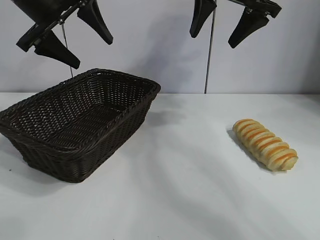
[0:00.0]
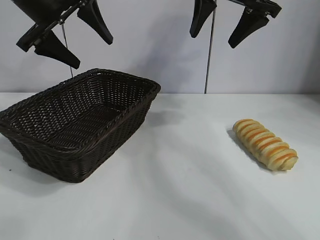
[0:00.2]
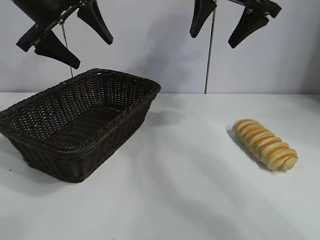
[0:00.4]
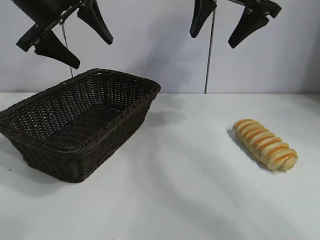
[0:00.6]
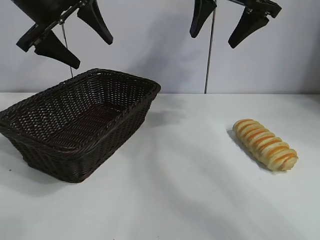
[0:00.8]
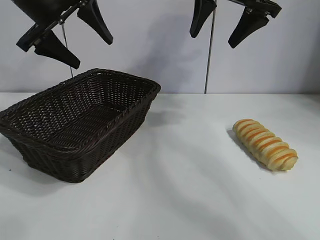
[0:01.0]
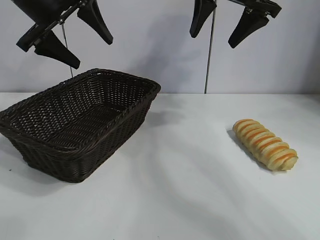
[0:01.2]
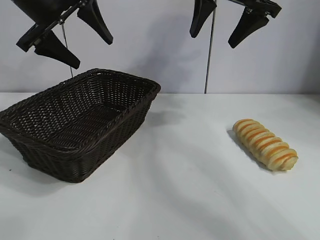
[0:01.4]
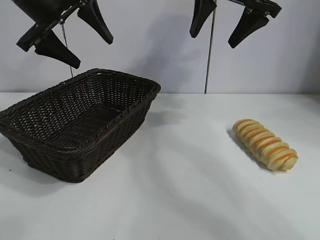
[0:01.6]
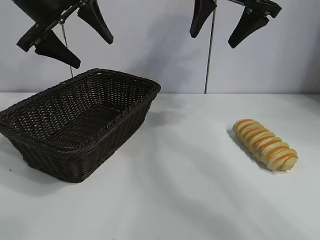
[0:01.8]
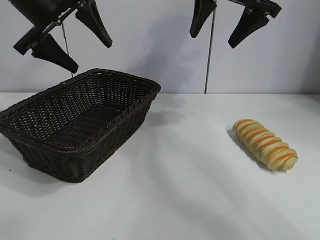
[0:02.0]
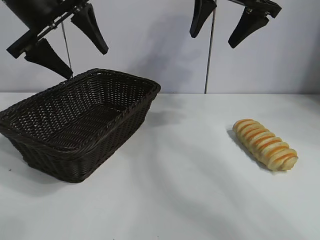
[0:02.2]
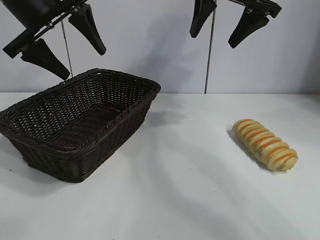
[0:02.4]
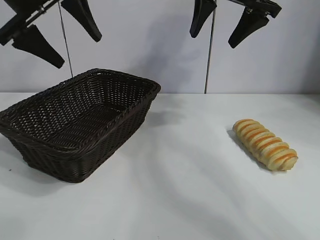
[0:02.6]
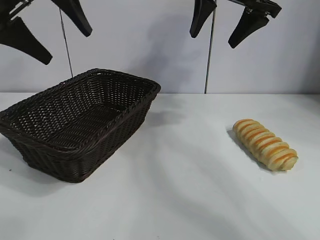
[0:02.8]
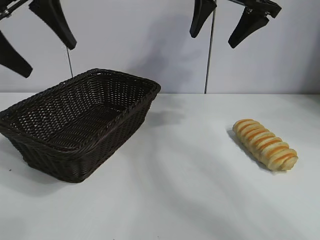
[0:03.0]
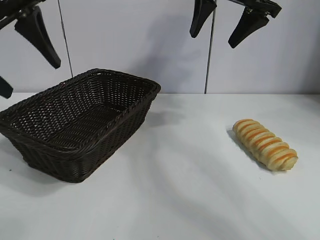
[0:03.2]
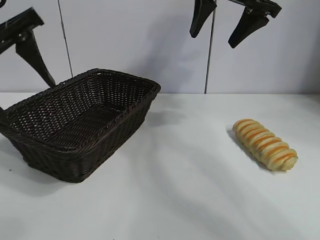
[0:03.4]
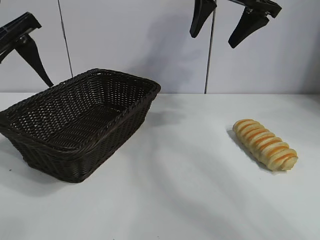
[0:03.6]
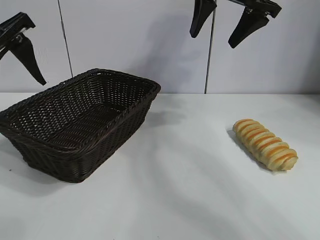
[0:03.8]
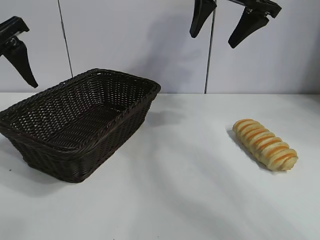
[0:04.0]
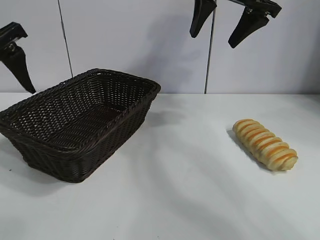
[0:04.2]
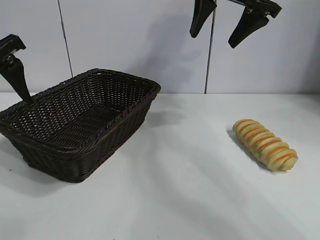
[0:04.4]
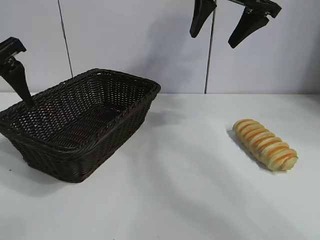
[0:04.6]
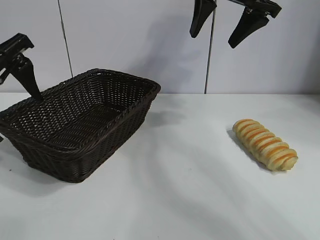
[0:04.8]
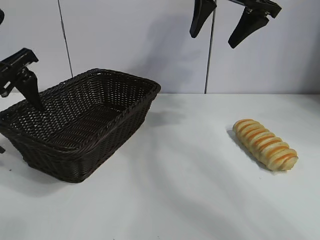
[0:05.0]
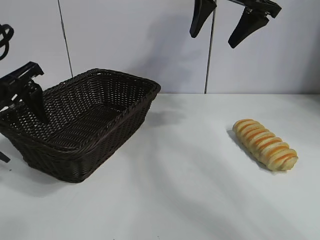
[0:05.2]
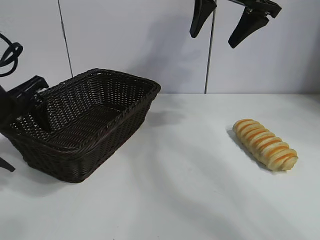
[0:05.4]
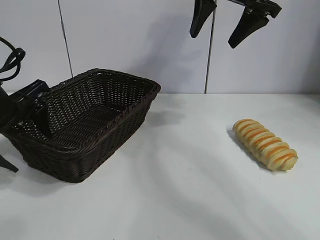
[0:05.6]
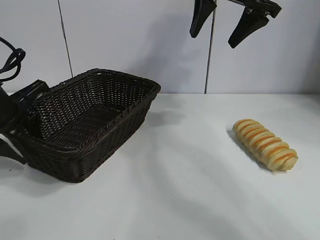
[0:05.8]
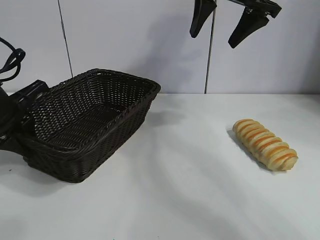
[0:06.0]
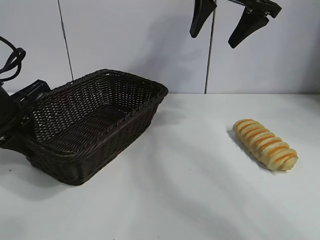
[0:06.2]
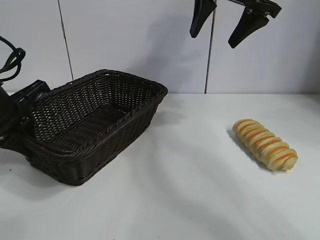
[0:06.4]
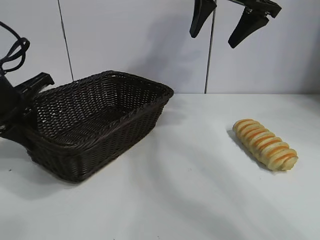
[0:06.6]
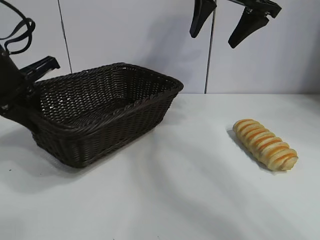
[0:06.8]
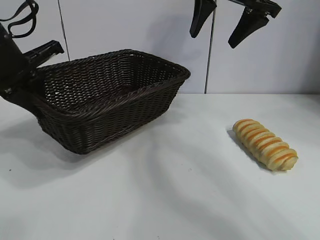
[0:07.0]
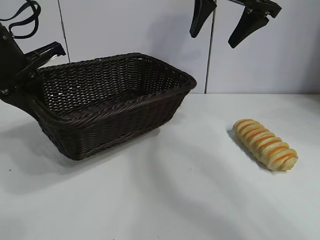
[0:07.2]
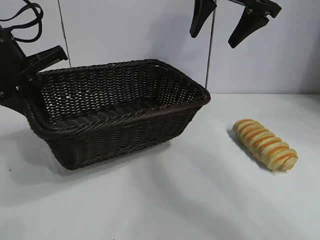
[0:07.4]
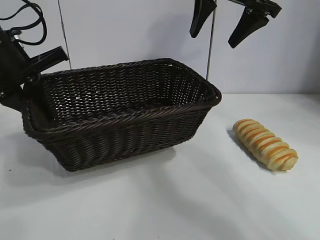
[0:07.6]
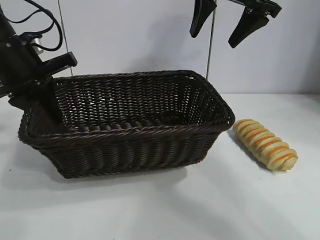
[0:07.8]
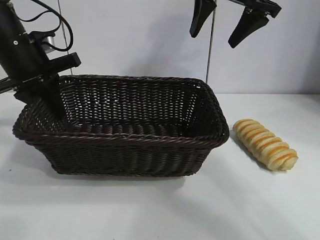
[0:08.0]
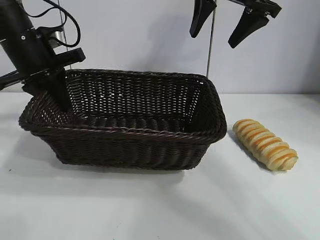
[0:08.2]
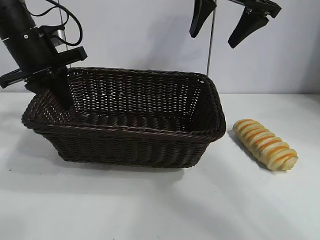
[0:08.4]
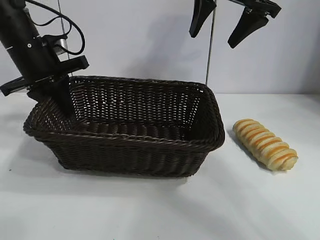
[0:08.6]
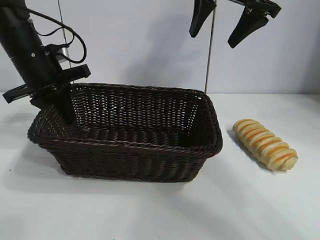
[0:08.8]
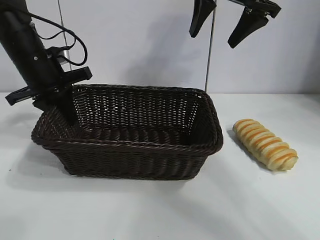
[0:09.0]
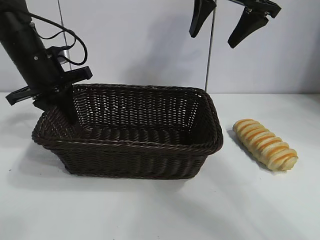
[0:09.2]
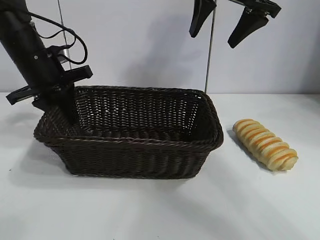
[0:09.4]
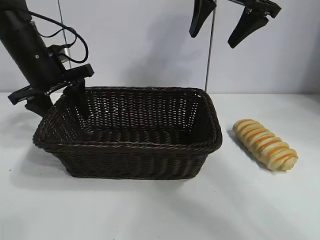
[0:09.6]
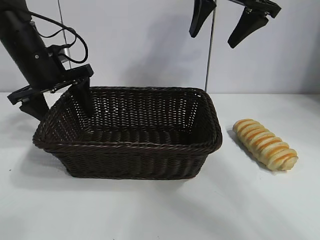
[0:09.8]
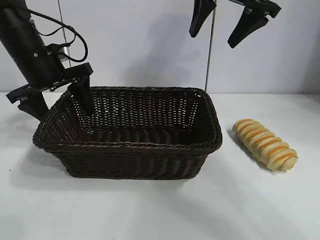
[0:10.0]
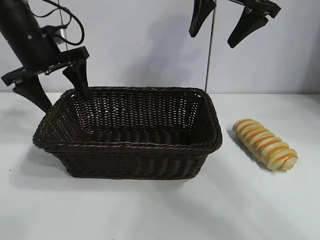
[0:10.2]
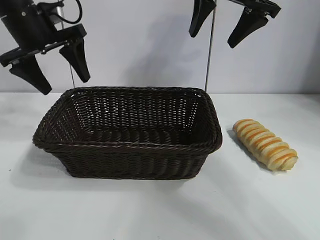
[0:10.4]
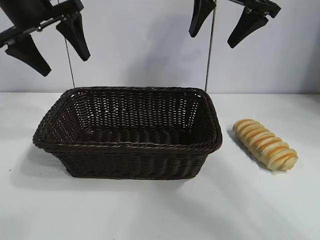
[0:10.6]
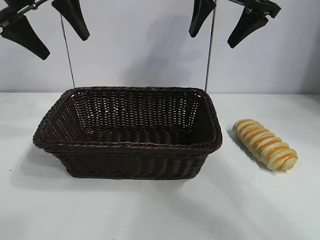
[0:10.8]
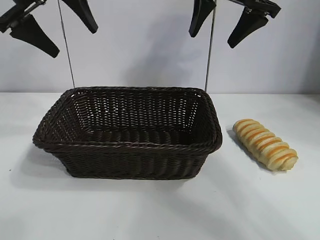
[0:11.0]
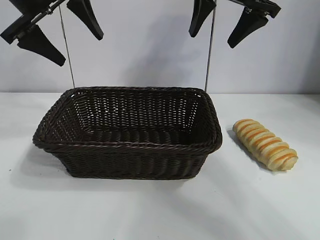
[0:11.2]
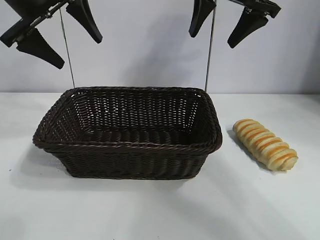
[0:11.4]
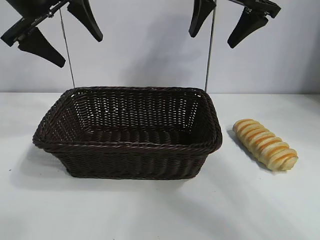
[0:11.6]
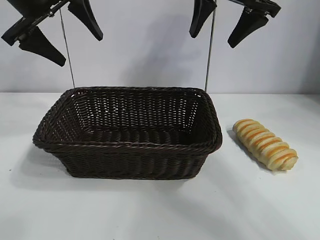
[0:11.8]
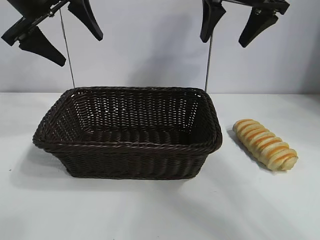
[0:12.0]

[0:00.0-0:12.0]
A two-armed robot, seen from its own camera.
Task of the whole recording: pick up the long bread and put it into the basket.
Step, 0:01.6 to 0:06.0: Grasp the basket with the left gripper.
Step, 0:06.2 to 0:09.8: Place the basket in the center of the table with the left gripper.

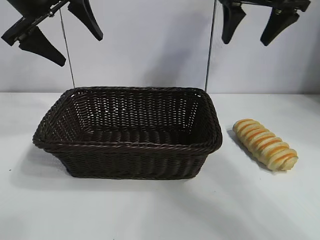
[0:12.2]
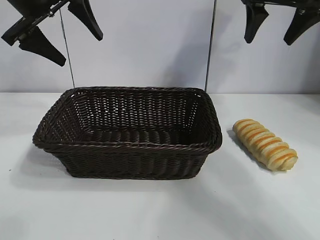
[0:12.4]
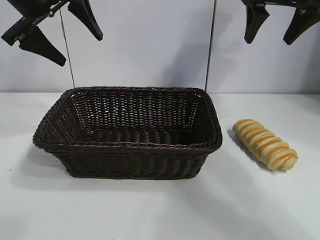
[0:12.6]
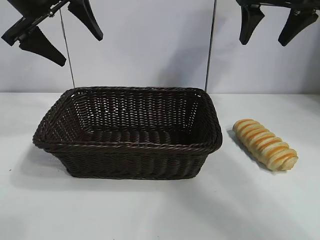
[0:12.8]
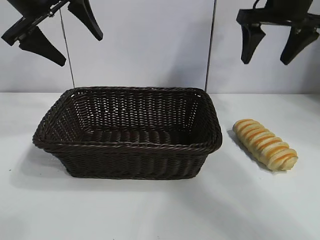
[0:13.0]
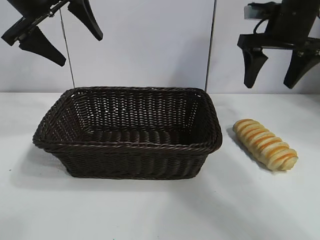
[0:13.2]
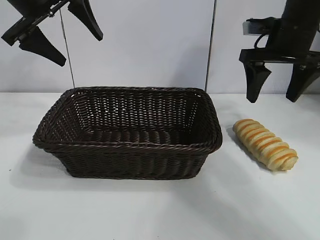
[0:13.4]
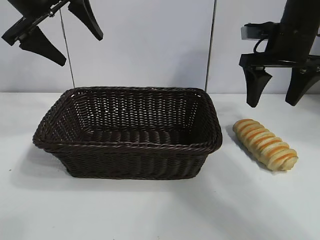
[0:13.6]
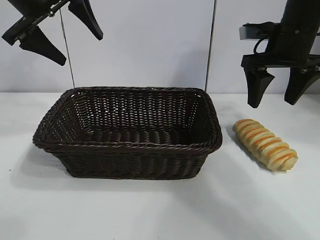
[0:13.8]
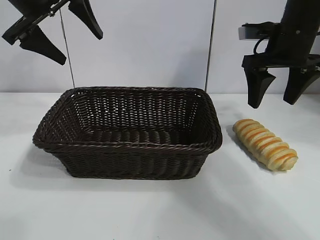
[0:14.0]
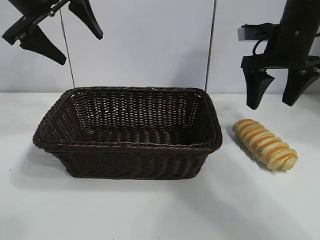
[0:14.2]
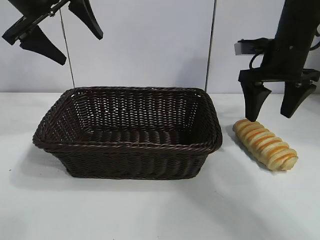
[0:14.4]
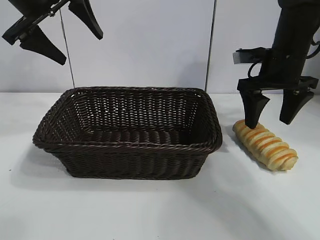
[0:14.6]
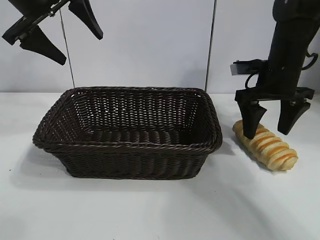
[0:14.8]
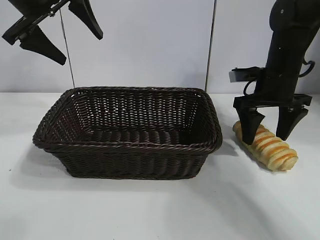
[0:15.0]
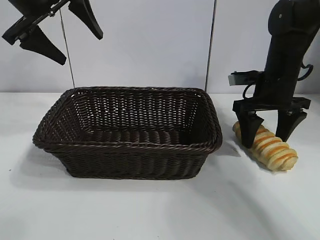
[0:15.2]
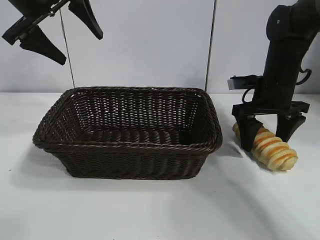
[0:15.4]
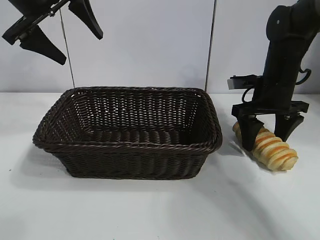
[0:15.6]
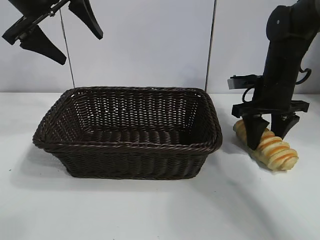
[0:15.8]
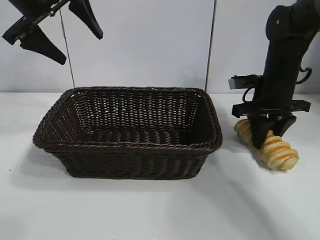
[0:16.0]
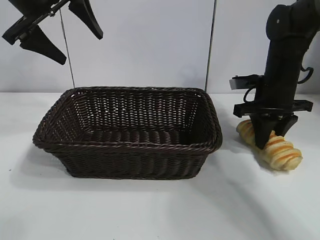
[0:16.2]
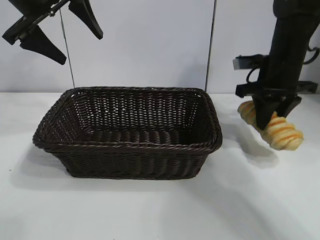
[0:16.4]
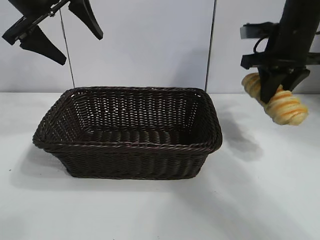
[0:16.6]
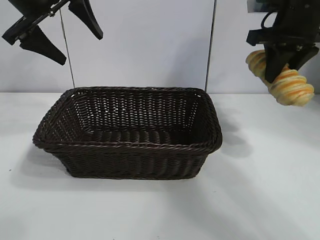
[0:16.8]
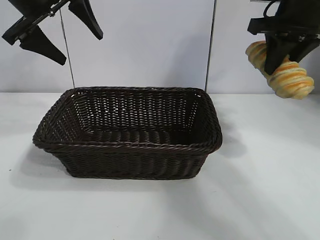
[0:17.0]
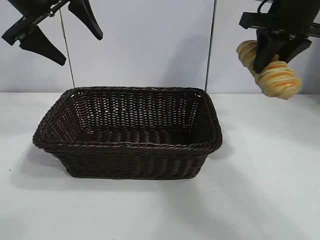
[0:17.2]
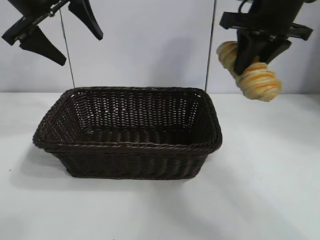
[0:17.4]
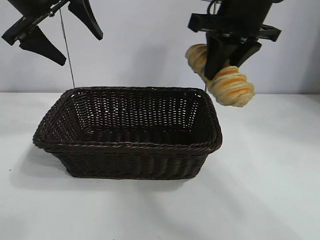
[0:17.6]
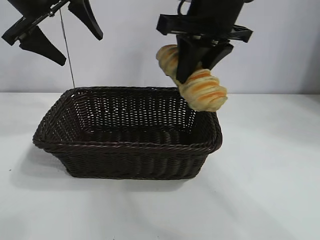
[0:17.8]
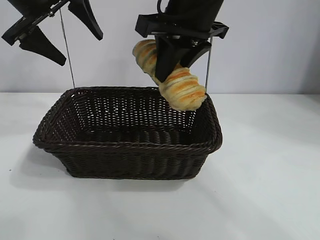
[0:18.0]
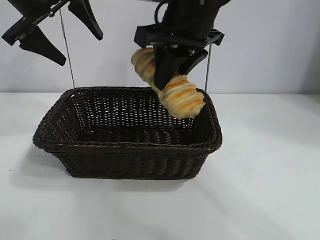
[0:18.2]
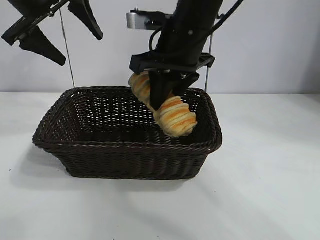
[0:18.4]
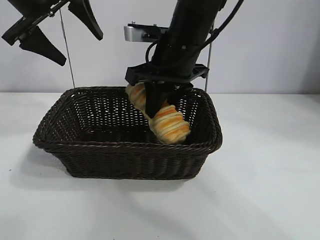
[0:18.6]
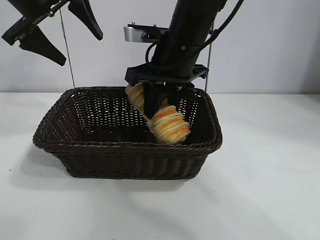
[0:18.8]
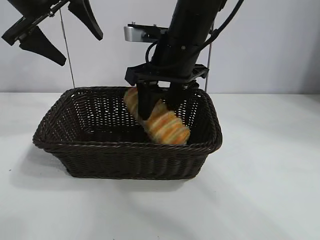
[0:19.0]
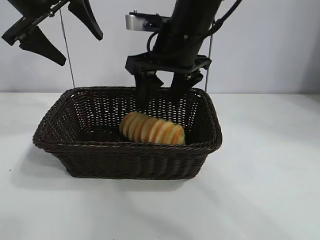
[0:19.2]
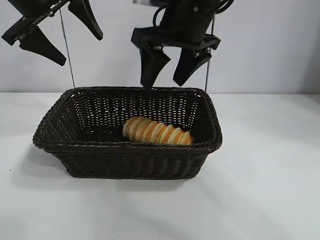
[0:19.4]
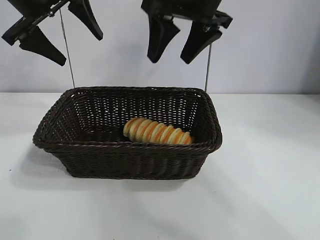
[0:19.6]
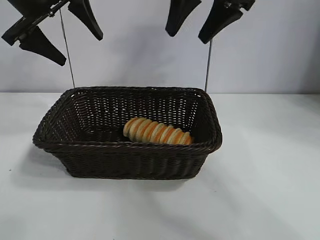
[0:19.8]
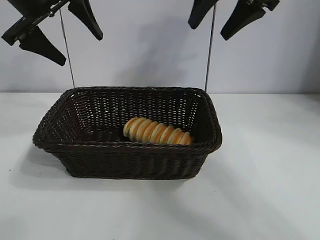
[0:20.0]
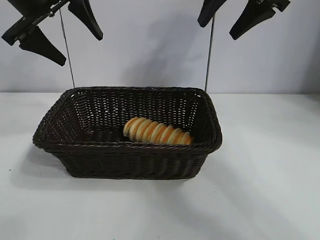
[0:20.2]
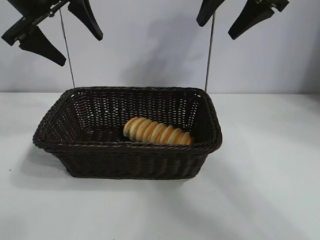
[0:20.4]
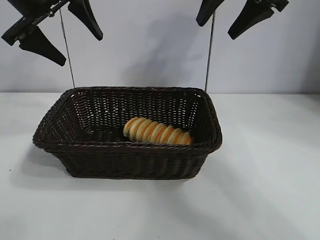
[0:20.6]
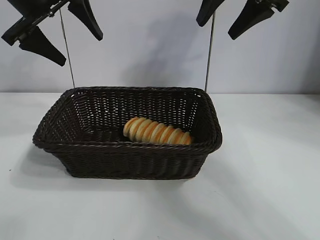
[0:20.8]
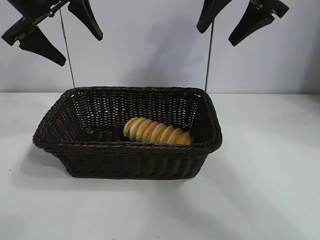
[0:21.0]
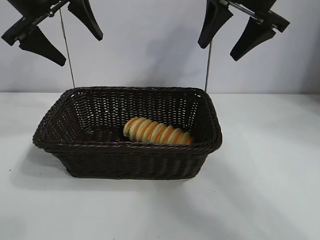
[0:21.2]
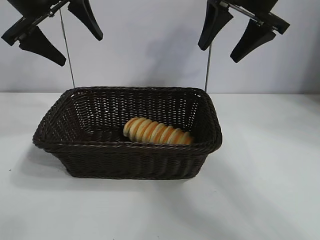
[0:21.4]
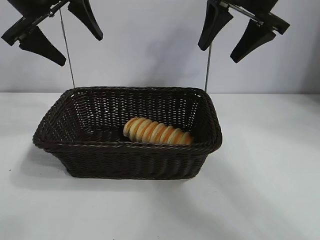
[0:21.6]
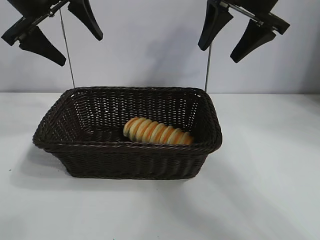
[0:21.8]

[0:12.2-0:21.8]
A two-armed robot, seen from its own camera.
Task of the whole recording: pick up the long bread and put it into the basket.
Step, 0:12.2 to 0:16.0: Grasp the long bread with right gripper.
Step, 0:16.2 to 0:19.2: Place the long bread in the basket with right gripper.
